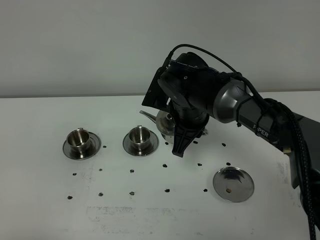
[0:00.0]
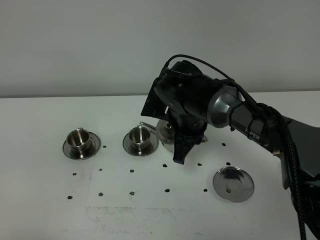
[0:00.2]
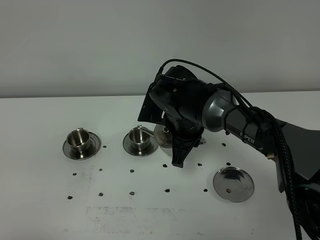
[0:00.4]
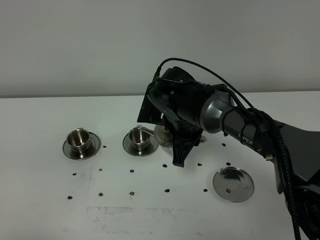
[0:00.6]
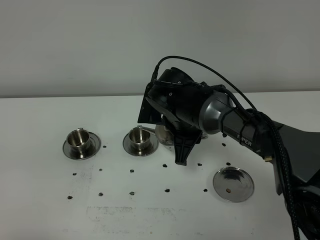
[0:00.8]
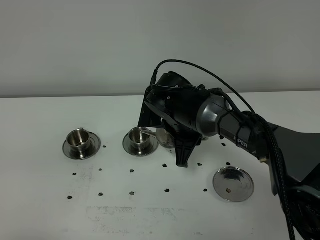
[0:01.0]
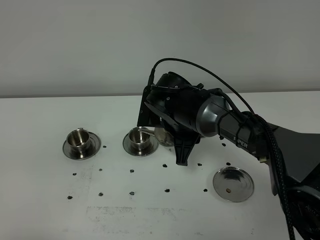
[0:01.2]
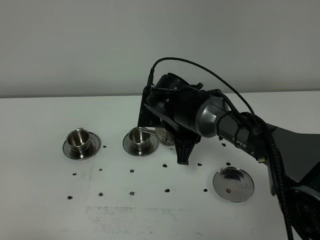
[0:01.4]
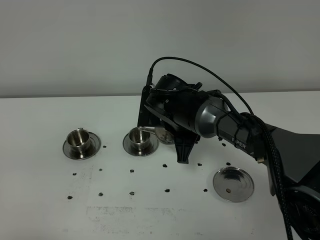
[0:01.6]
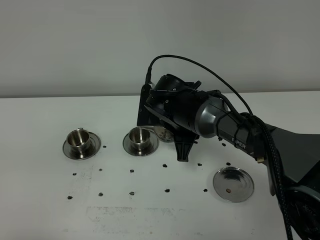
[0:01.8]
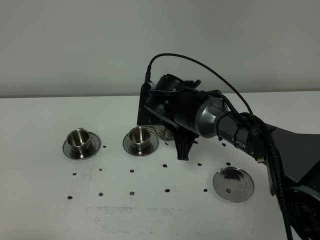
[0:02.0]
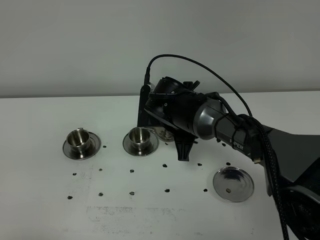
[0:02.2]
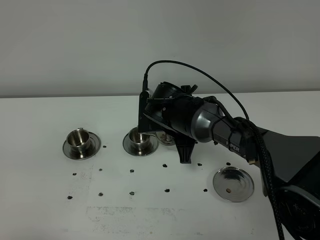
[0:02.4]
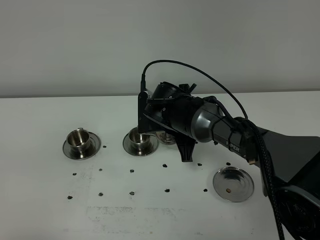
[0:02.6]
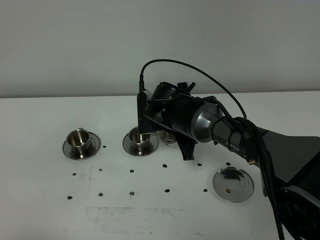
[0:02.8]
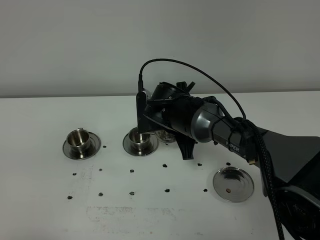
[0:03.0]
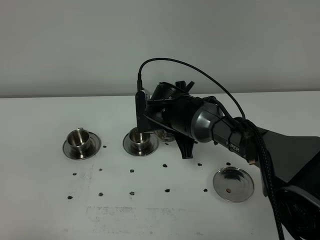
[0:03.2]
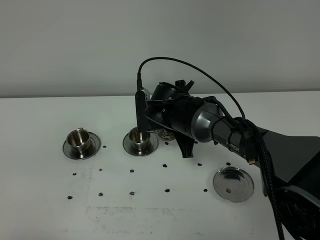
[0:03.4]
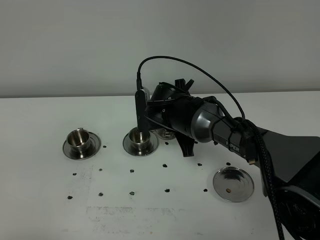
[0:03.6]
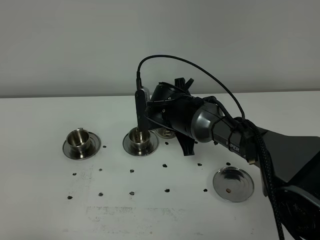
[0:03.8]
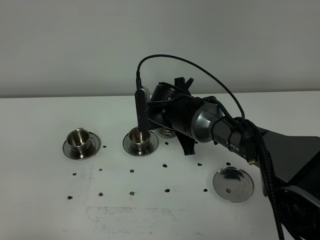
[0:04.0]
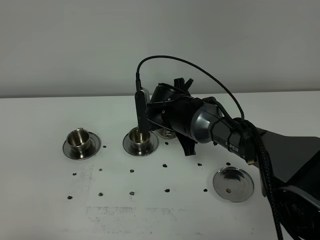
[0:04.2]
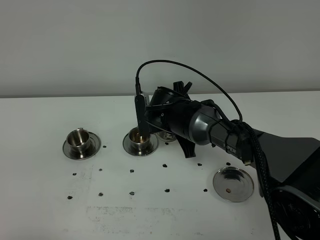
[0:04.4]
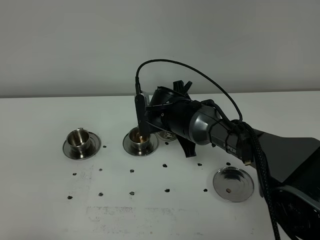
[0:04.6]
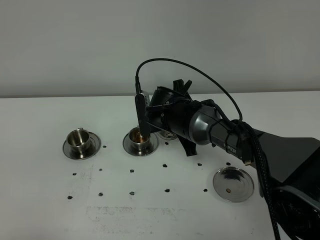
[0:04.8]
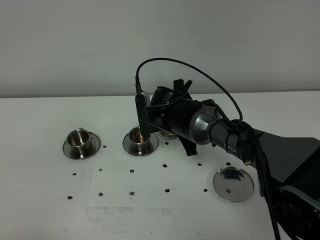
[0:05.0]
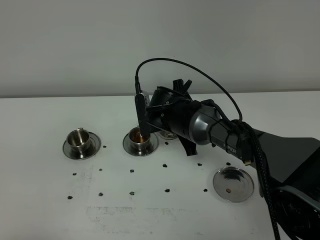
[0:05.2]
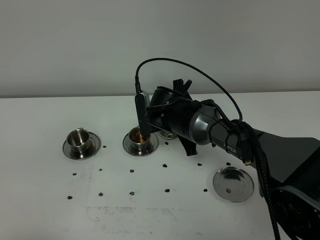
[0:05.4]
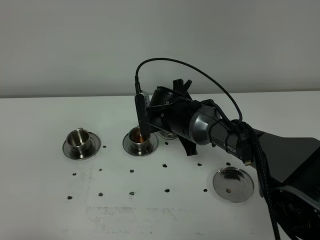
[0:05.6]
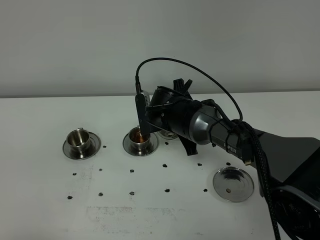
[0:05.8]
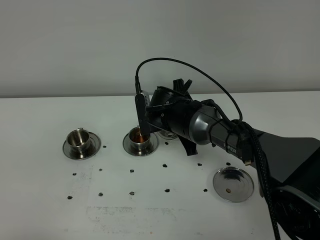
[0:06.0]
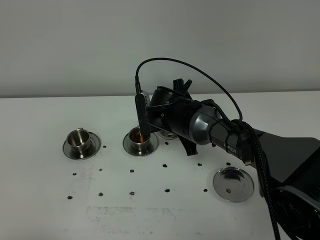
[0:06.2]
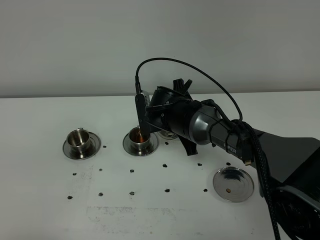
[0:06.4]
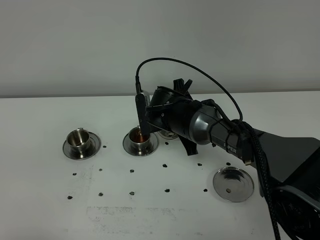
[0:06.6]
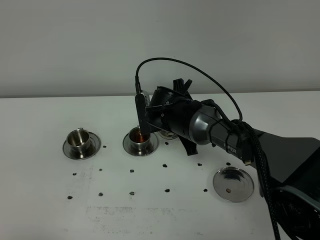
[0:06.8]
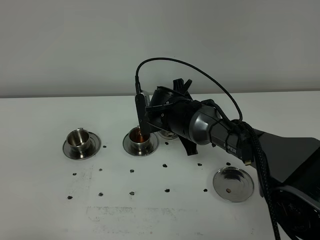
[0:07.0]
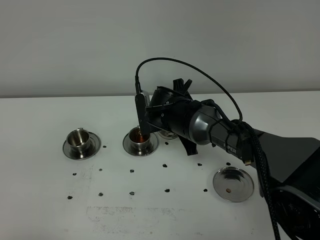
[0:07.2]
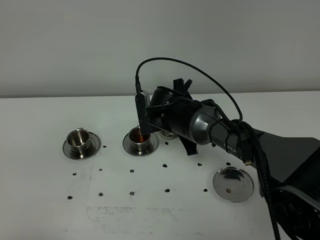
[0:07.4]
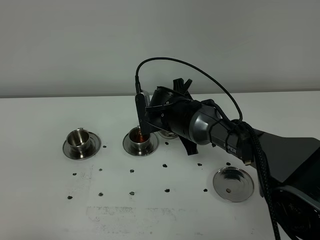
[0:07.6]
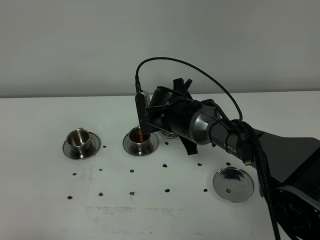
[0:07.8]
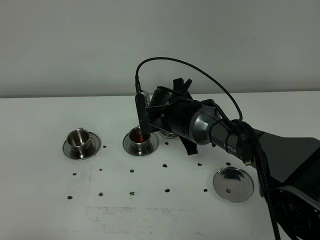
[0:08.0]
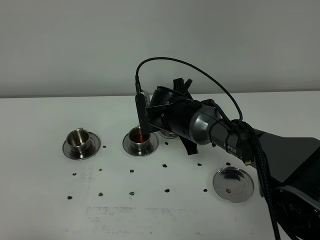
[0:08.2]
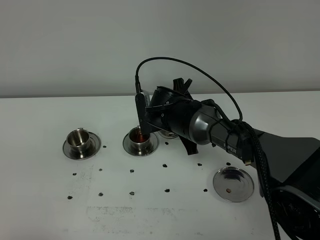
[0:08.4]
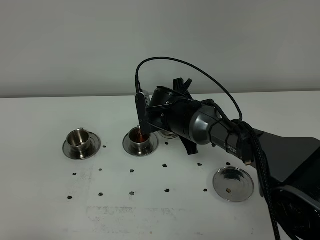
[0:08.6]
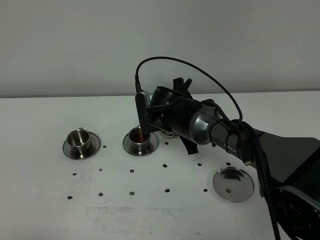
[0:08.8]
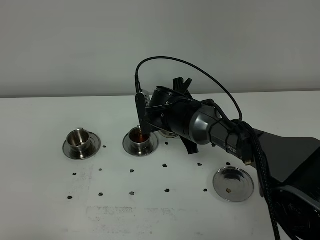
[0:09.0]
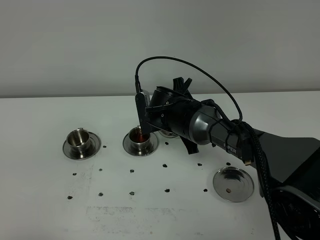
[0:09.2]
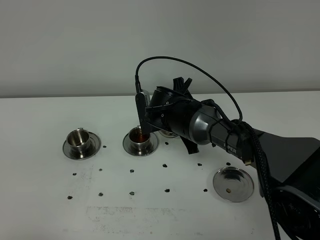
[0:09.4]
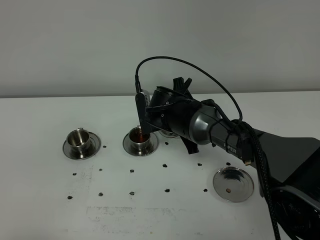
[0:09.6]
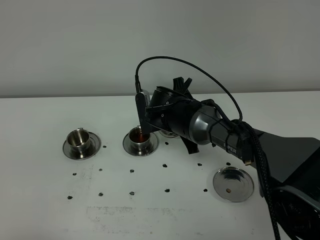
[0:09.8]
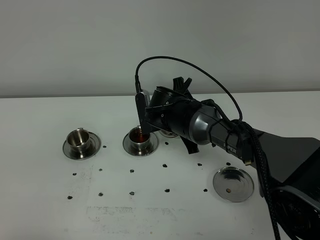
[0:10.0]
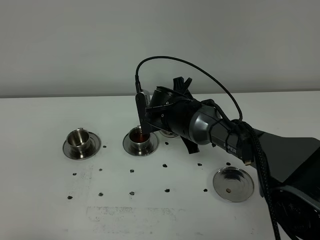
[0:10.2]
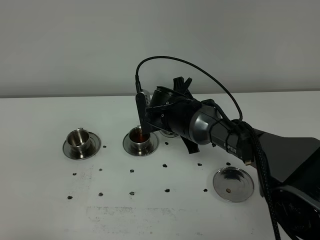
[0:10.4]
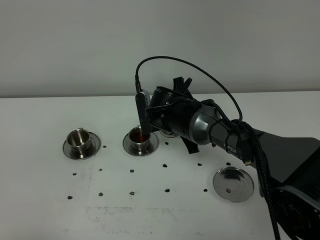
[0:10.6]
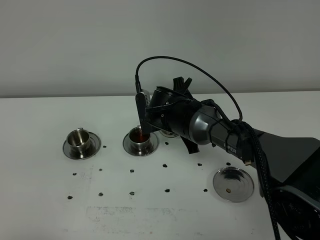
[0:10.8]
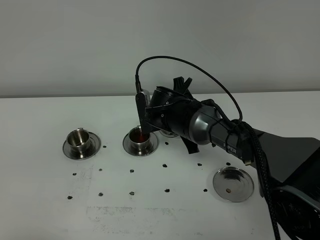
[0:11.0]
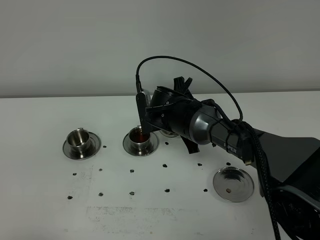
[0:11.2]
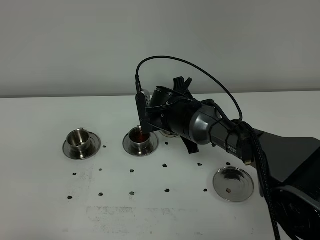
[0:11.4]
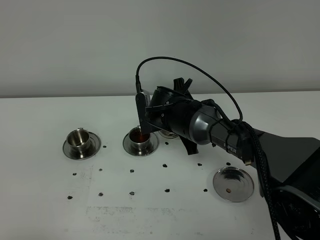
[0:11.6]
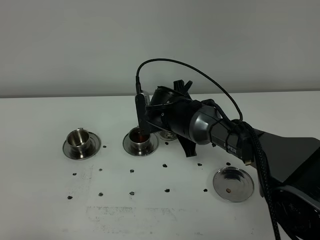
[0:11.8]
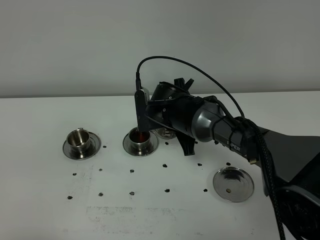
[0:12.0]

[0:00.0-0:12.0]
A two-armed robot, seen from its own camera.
Task of the whole recording: grasp the stainless steel teapot and pour the tea into the two stainless steel teacups one by one, put the stainless steel teapot back in its original place.
0:00.0 to 0:01.6: The grippers stay close to where they were, moving slightly.
0:01.6 to 0:04.4: The grippers move only a little.
0:04.4 to 0:10.4: Both grippers stay about where they are.
0:10.4 to 0:12.0: The grippers make only small movements.

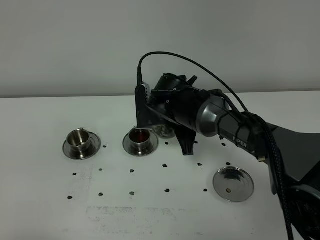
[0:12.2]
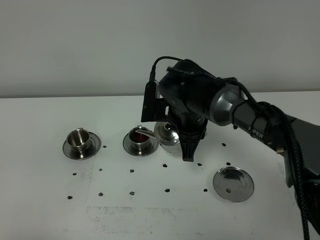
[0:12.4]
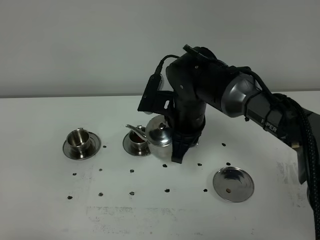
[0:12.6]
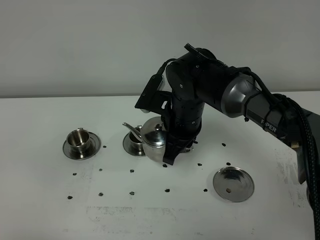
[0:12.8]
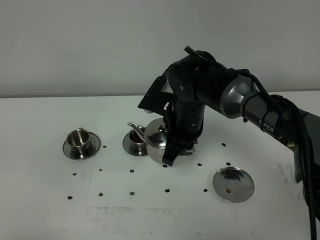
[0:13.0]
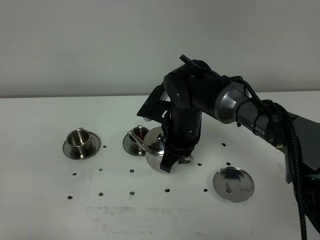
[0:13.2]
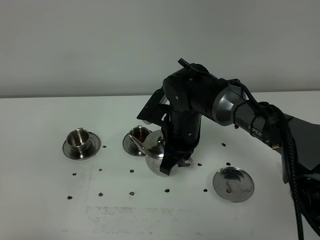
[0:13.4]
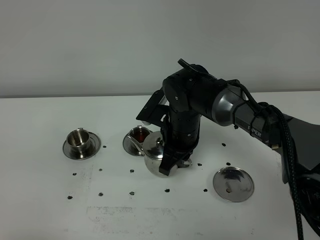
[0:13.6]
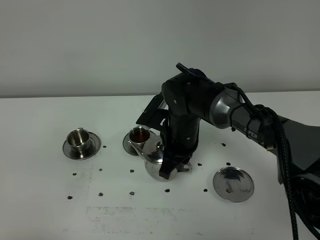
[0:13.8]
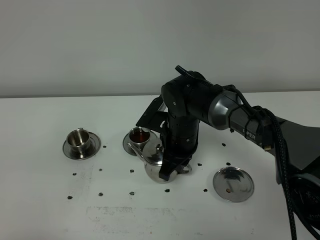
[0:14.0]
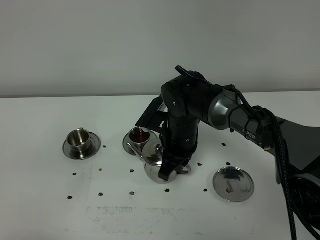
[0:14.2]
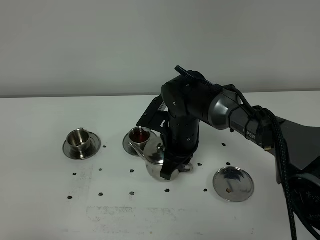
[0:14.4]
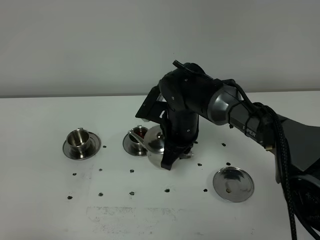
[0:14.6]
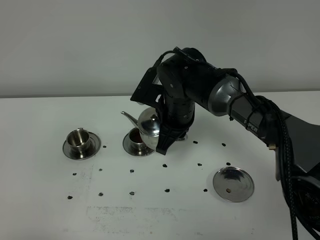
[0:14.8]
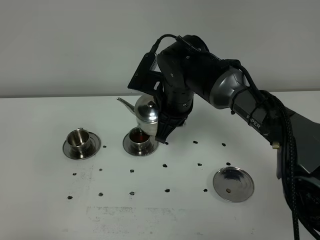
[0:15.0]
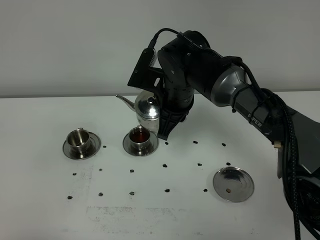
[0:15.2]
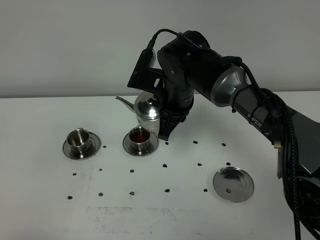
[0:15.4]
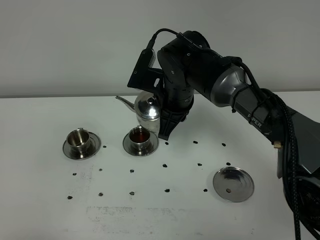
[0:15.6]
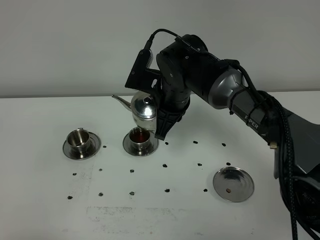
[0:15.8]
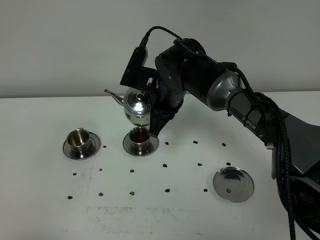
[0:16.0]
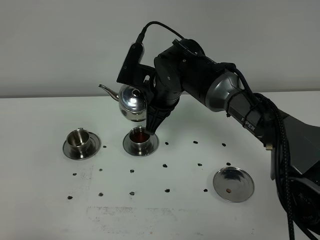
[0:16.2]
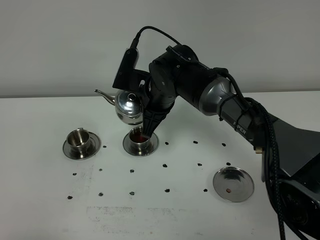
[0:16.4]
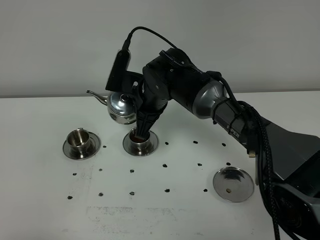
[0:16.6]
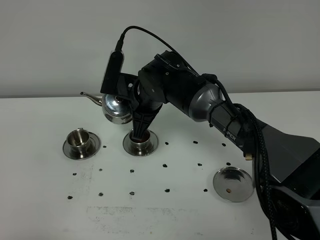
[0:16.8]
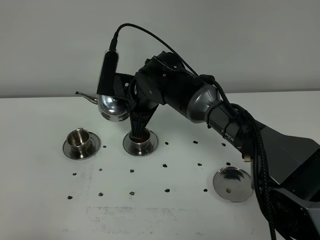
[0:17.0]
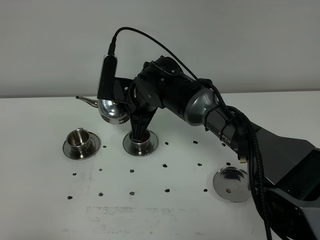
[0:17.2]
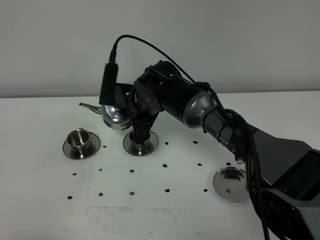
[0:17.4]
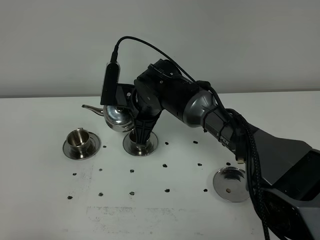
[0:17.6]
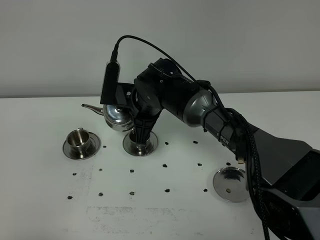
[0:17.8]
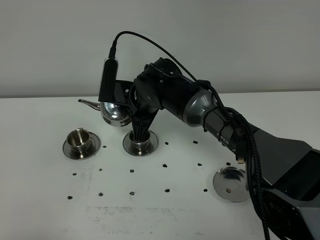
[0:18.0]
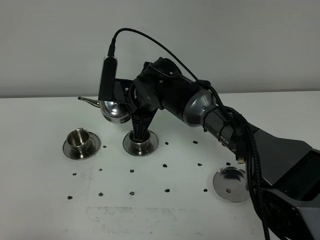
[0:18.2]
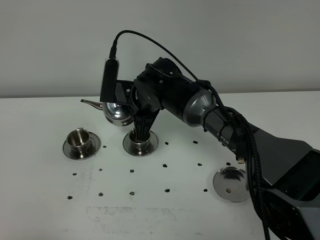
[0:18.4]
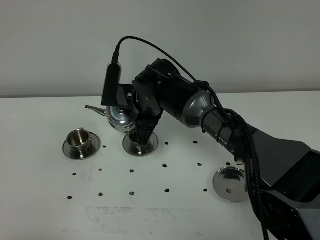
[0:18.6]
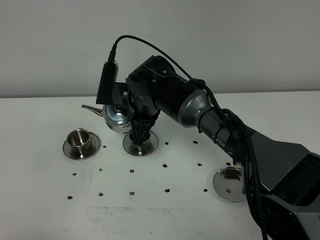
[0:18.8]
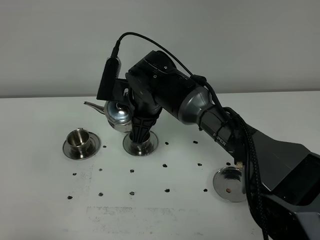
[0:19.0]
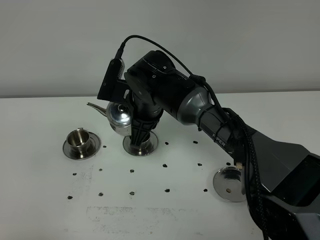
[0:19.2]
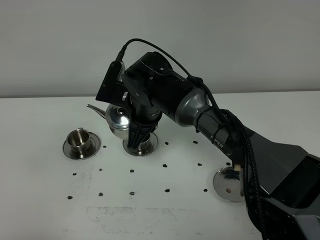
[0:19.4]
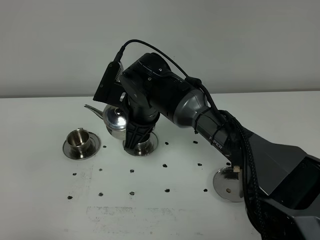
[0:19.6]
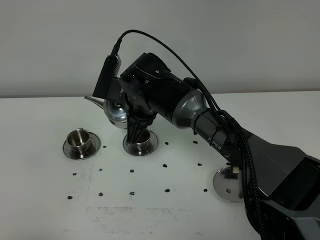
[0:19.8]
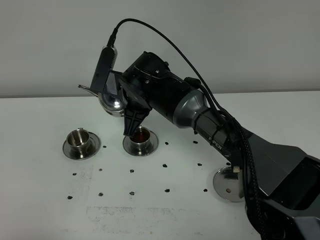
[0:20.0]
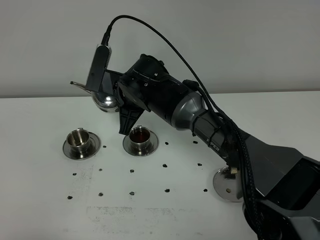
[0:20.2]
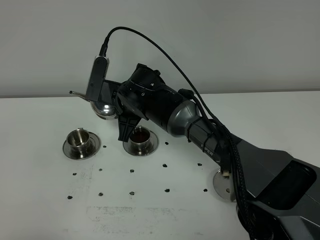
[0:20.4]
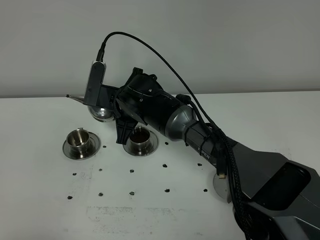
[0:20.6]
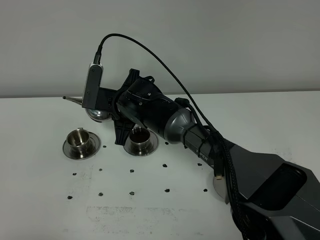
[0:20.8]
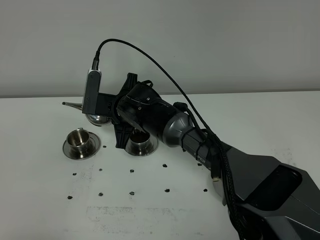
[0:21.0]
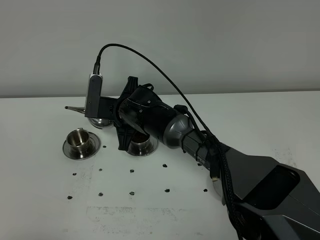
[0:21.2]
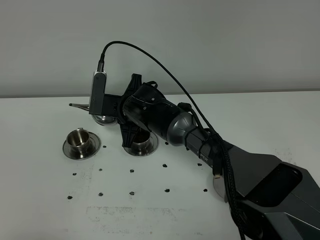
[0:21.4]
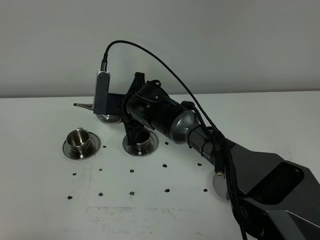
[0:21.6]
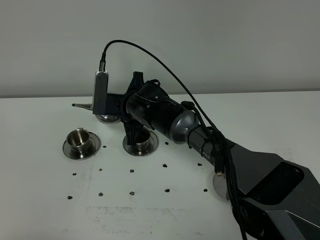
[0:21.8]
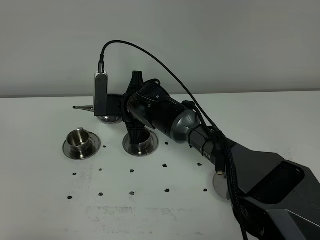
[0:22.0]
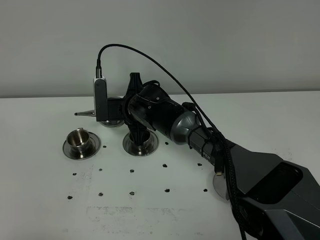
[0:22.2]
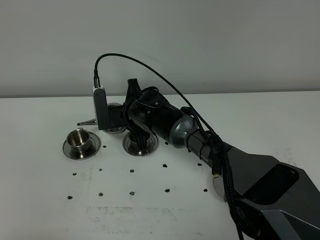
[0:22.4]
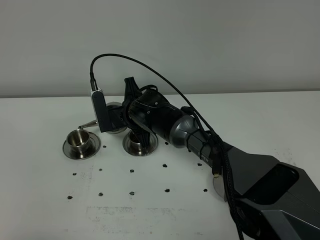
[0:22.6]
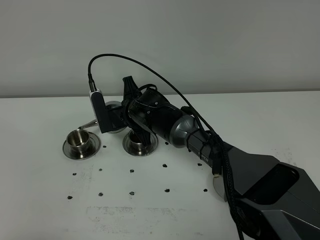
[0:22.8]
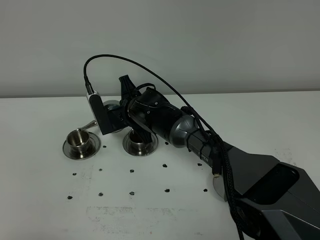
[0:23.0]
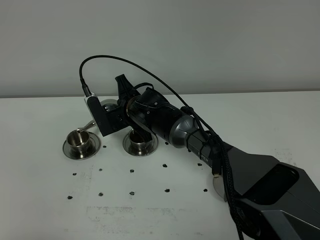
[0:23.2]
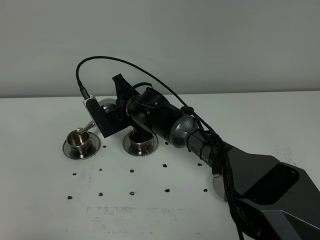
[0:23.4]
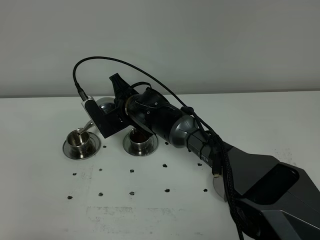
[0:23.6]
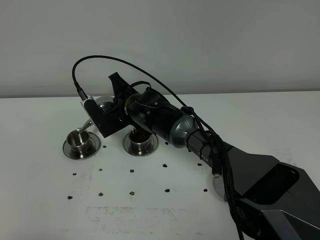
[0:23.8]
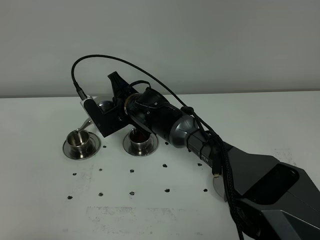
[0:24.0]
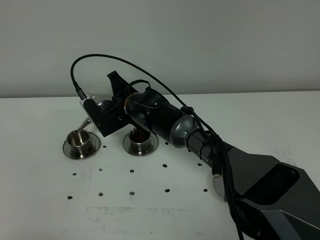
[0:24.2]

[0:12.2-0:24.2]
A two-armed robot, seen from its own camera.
Task of the whole recording: grasp the stainless steel teapot and pour the tea into the two stainless steel teacups one by one, put the stainless steel teapot back in its original place.
0:13.8 to 0:15.2: The right gripper shifts about 5 cm upward.
0:15.2 to 0:16.6: The grippers stay close to where they were, moving slightly.
0:16.6 to 0:19.8: The grippers make only small movements.
0:19.8 to 0:21.2: The right gripper travels downward by approximately 5 cm.
